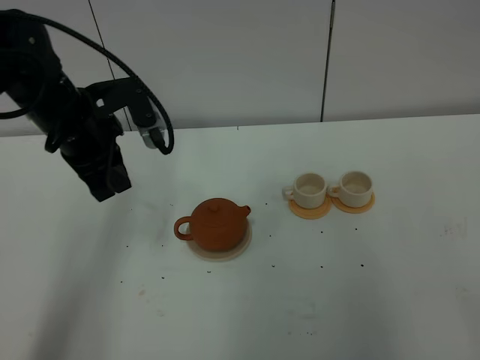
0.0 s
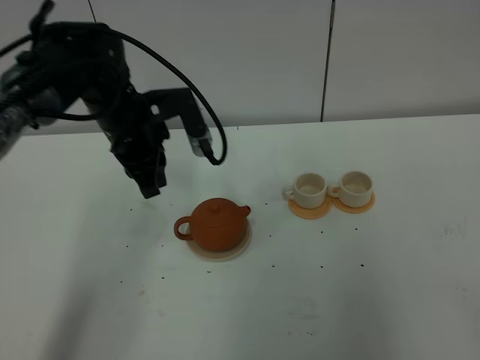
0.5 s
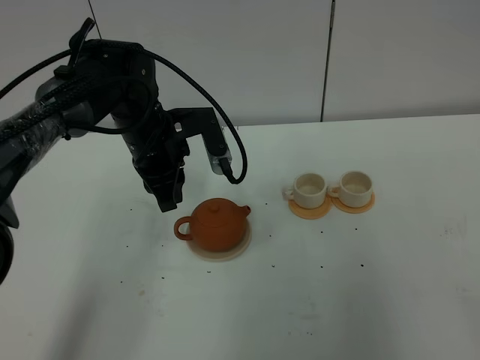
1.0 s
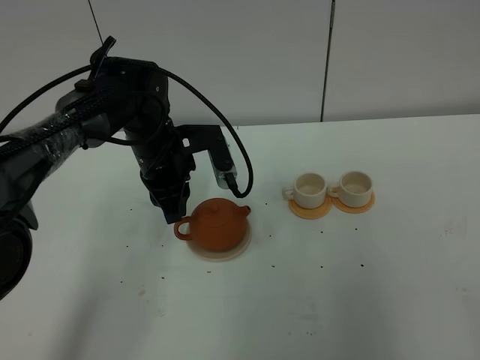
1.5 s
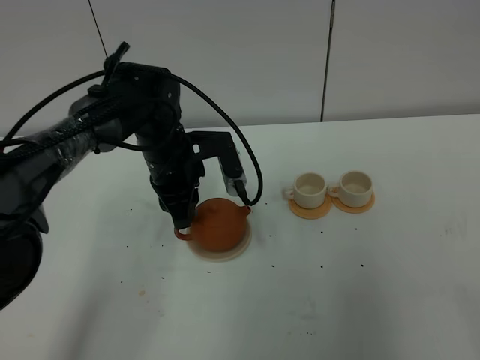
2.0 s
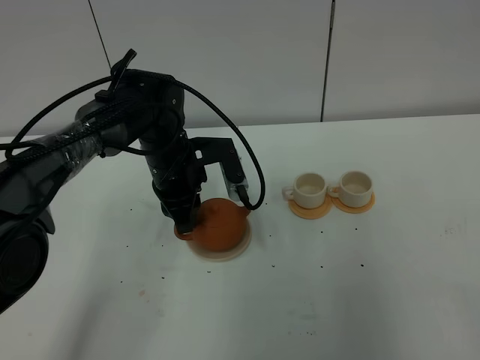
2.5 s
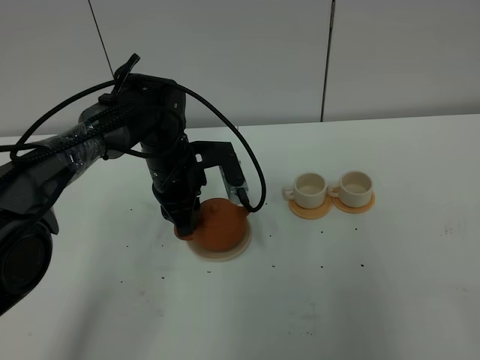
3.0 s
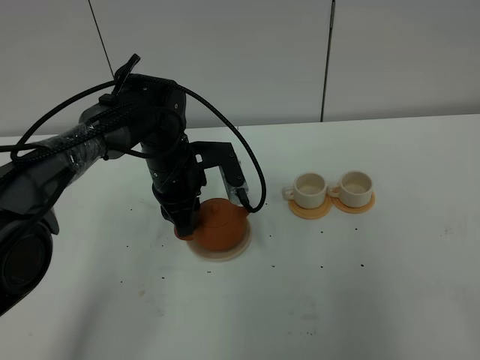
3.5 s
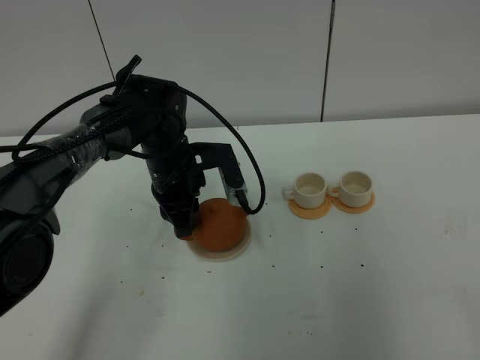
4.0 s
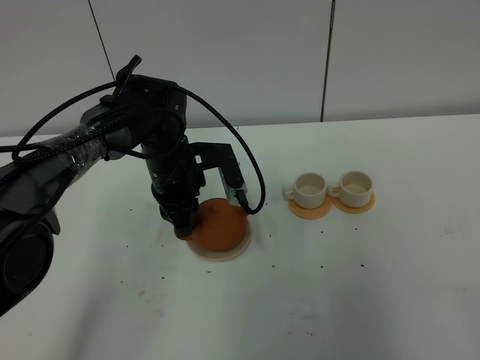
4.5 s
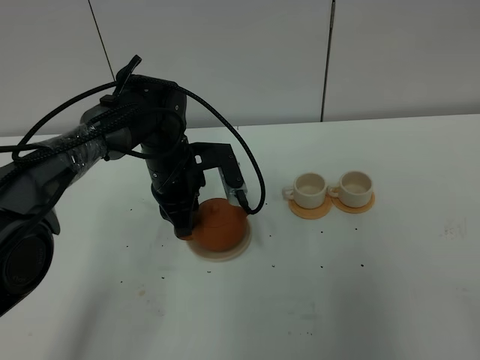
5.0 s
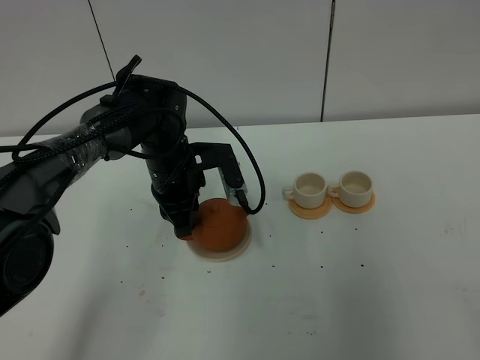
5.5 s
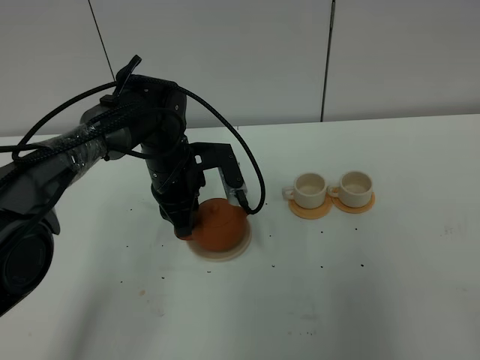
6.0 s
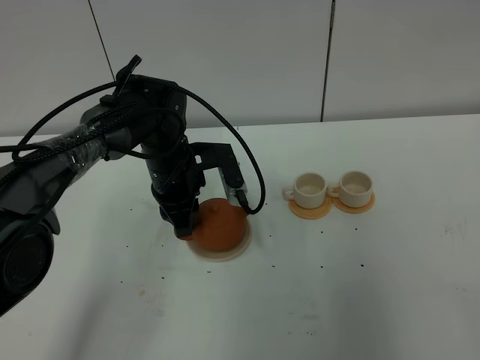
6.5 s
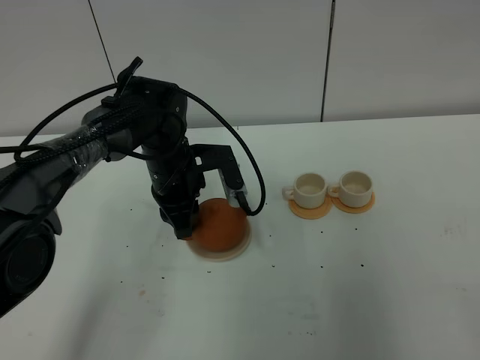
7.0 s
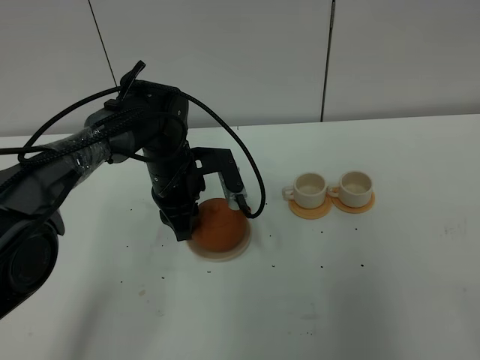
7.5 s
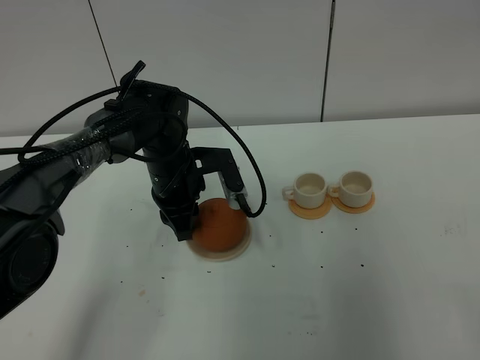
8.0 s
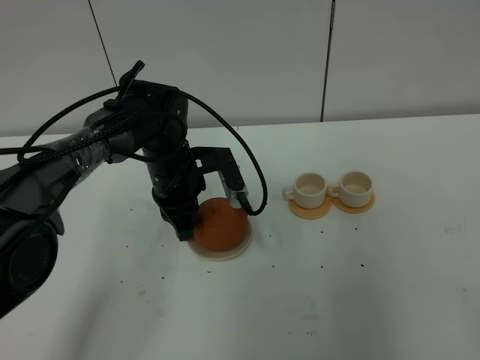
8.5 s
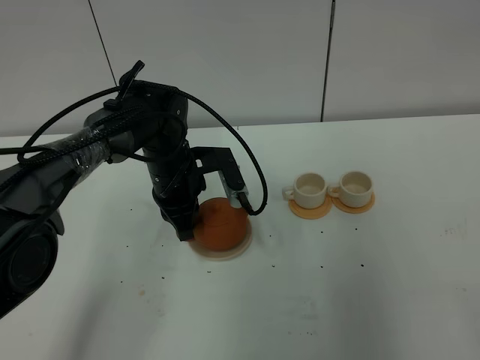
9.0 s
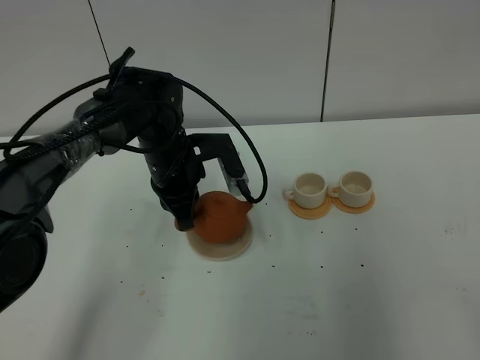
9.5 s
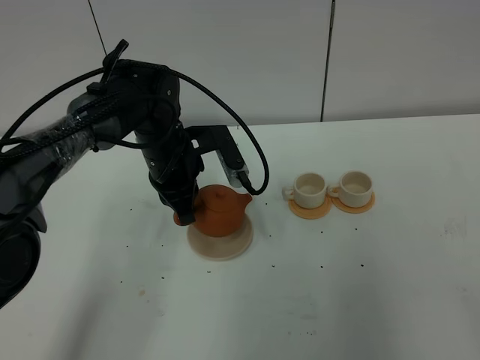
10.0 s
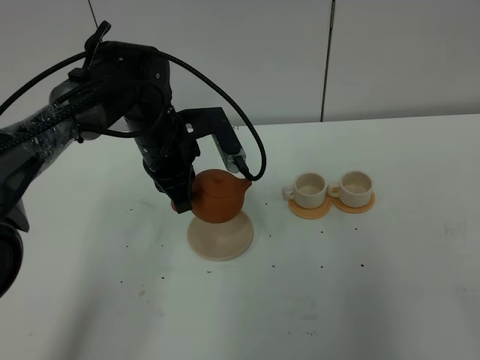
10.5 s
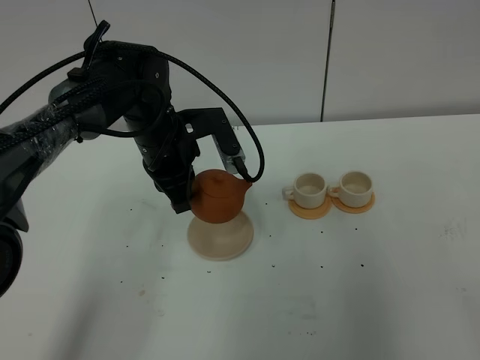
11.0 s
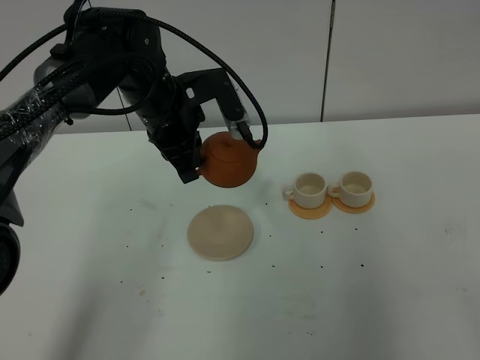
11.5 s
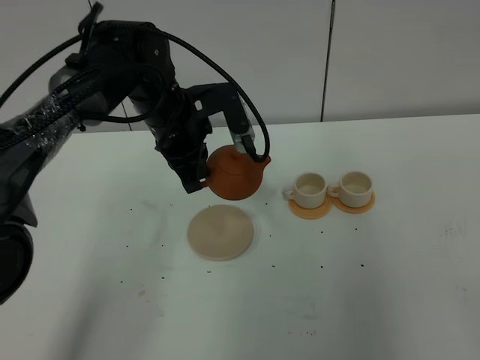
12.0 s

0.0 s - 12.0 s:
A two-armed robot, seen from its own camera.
Task of the whole recording: grasp the brown teapot and pour the tea into the two white teacups one by one, put the brown teapot back in its original place.
Step, 0.0 s - 10.5 s: Pick up the teapot with the left gripper.
0.0 s - 2.0 s: The left gripper heads downward and to the right, covering some 15 cm.
2.0 s - 4.0 s: The grippers make only small movements.
4.0 s - 8.0 s: Both grippers stay about where they are.
8.0 s - 10.0 s: The left gripper closes its fingers.
10.0 s - 12.0 s: The left gripper changes place by roughly 5 cm.

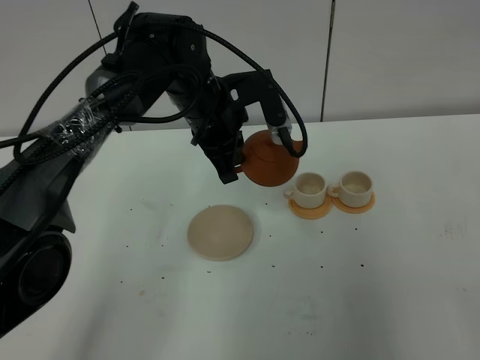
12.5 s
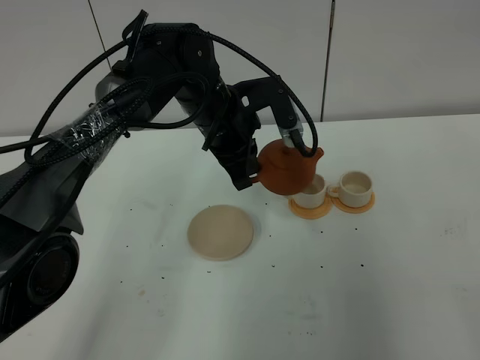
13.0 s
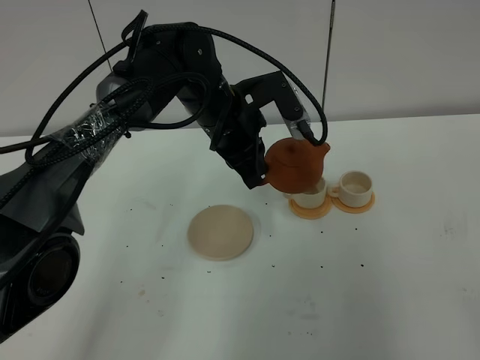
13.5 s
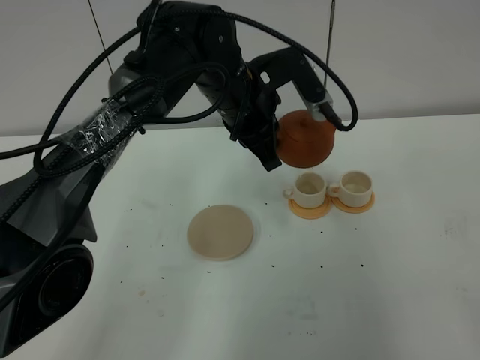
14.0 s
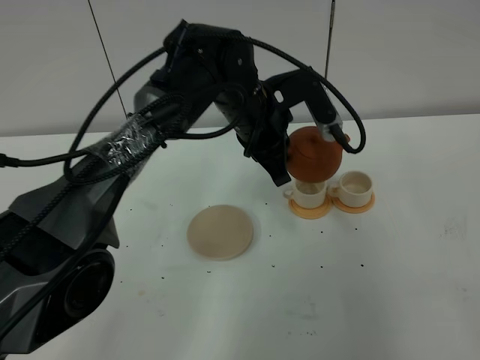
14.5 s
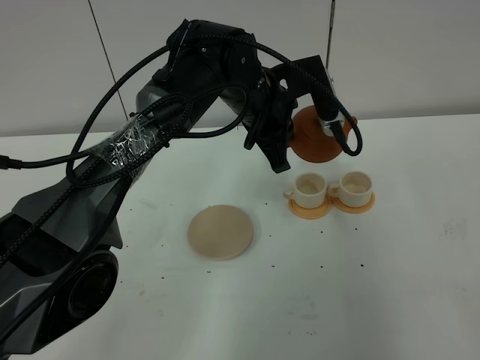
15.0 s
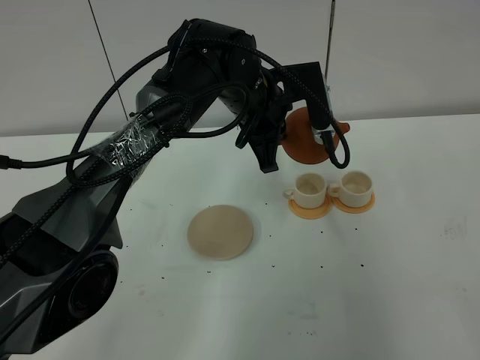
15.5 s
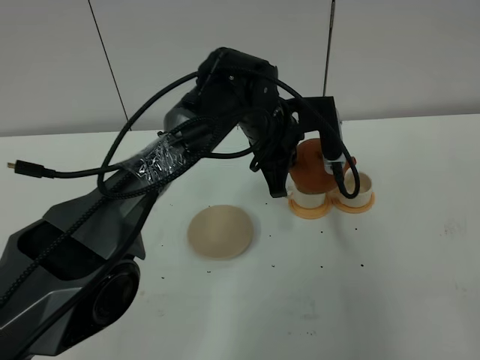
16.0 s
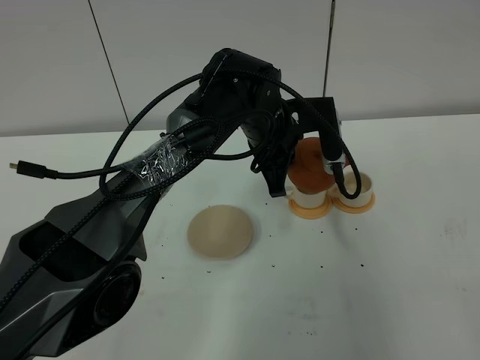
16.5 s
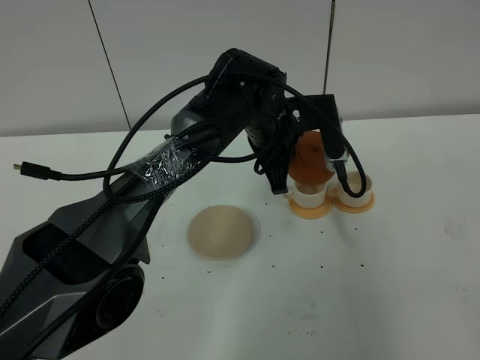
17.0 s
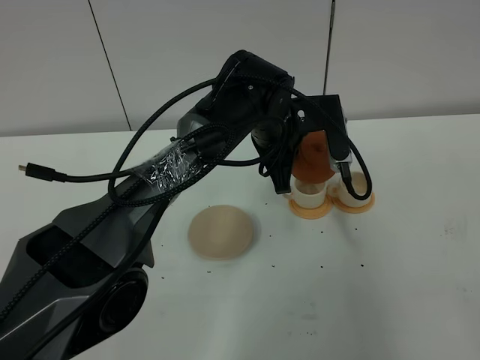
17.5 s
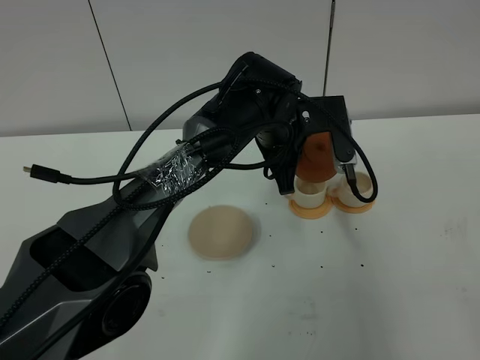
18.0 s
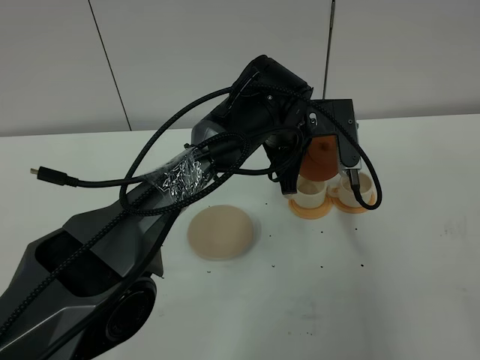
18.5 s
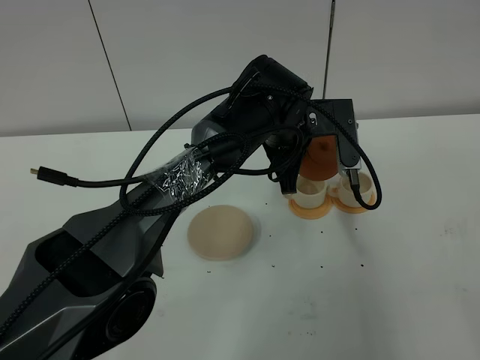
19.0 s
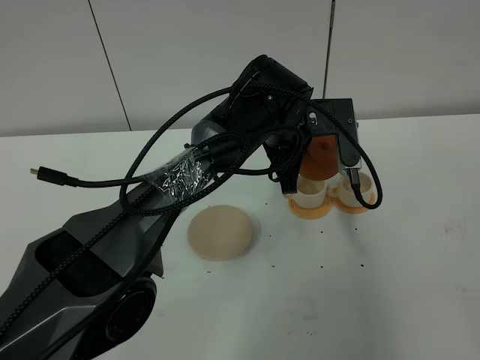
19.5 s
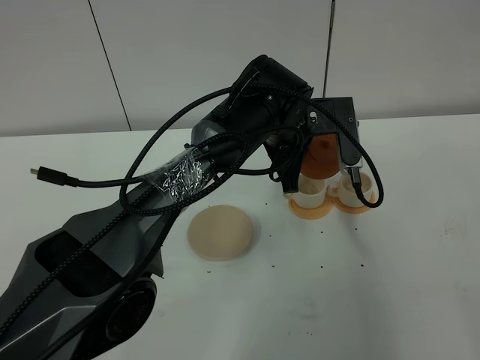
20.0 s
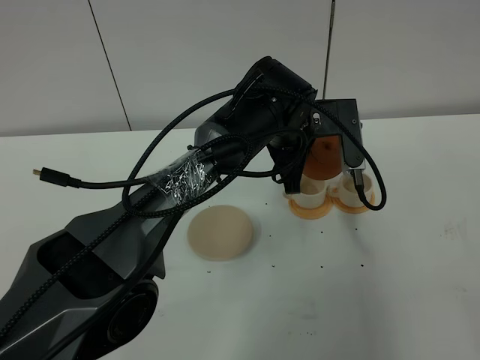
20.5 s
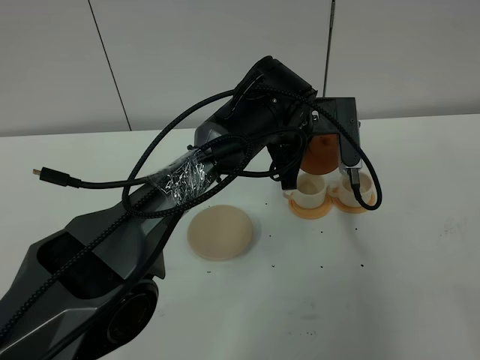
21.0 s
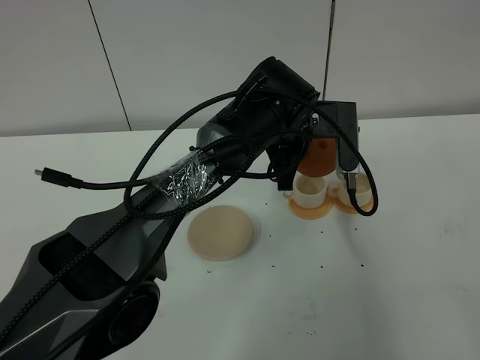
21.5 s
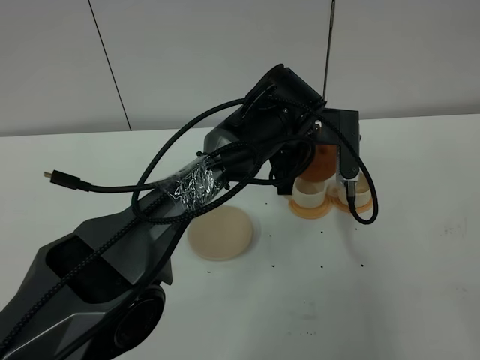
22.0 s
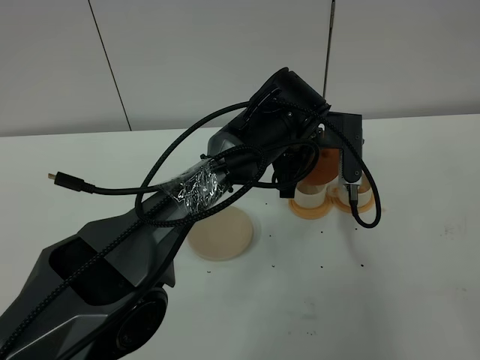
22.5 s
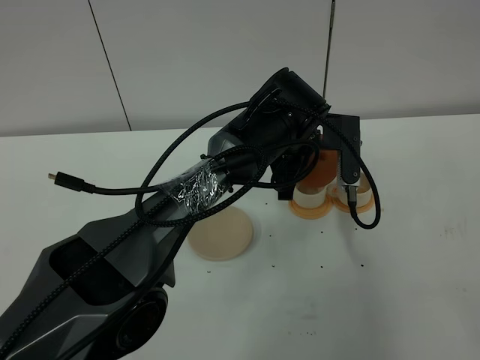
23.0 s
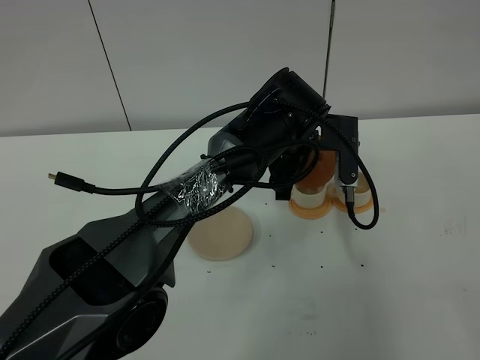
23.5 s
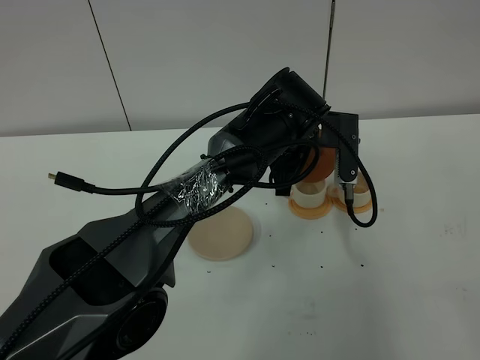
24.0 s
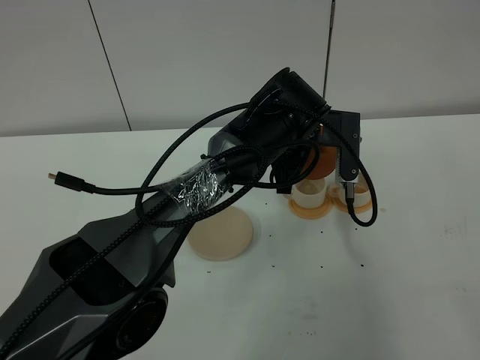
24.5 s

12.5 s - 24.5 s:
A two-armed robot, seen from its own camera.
Task of the whole recording: grasp the brown teapot and pour the tea into the two white teacups one by one, put the brown teapot back in its original place.
12.5 s - 14.5 s: The left gripper travels to the right by approximately 5 cm.
16.5 s - 18.5 s: There are only small adjustments of the grippers.
18.5 s - 20.5 s: Both grippers stay about where they are.
20.5 s - 22.5 s: The grippers stay close to where they were, moving slightly.
22.5 s - 24.5 s: Both grippers stay put.

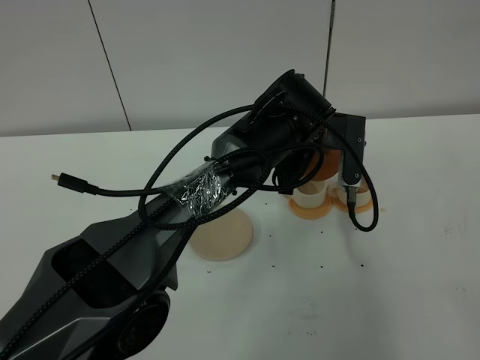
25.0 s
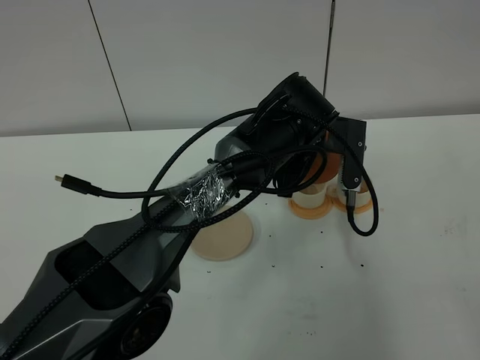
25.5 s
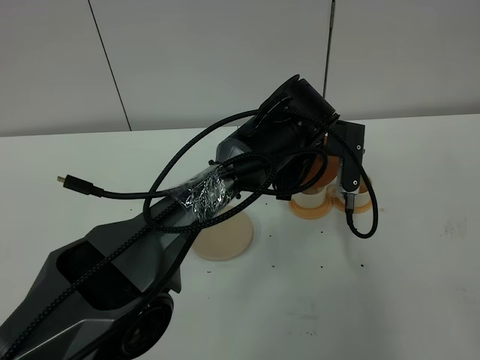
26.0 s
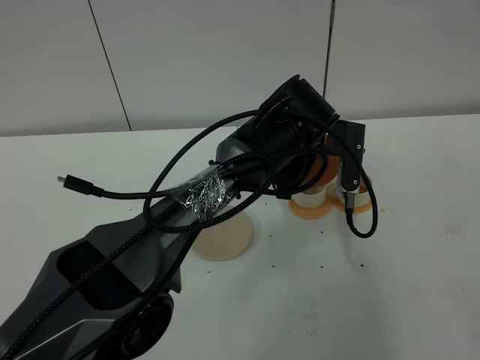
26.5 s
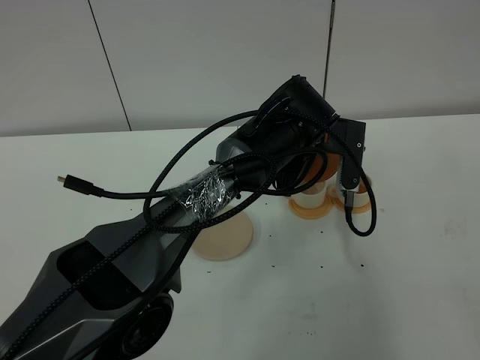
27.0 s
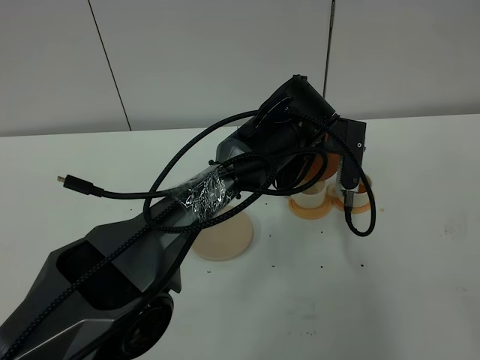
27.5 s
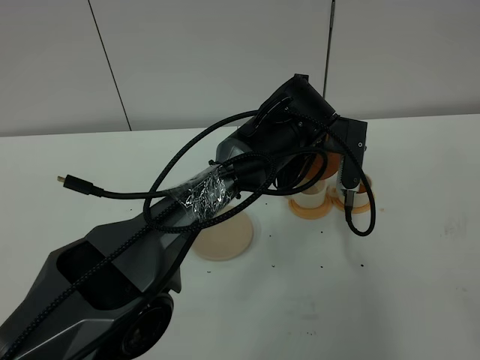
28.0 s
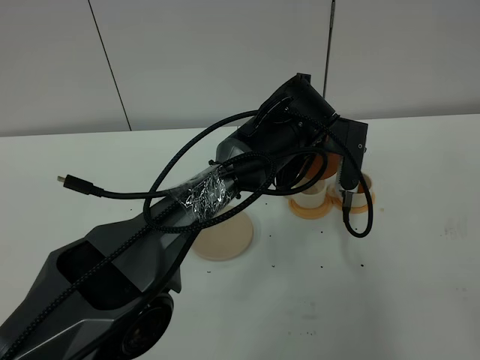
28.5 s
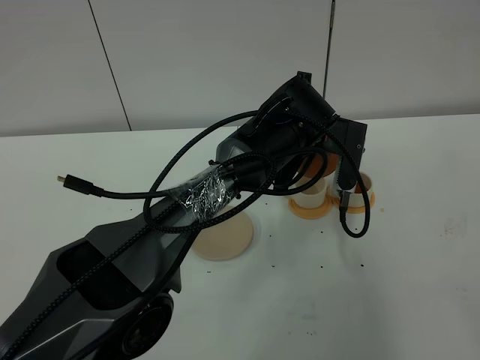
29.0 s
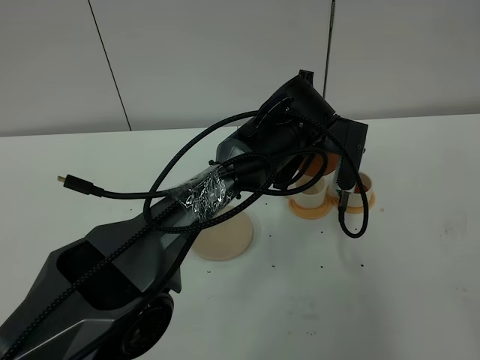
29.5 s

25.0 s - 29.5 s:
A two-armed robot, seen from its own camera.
Task of the whole recording: grasp the brown teapot and pour the tea into the two white teacups one by one, put the brown teapot back in its original place.
25.0 s - 27.0 s: The two grippers keep their place.
27.0 s - 29.5 s: The grippers move only a little.
